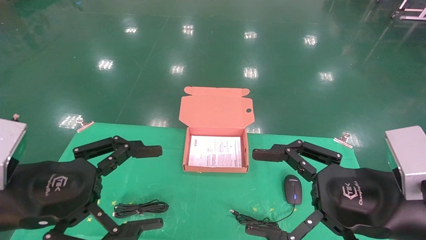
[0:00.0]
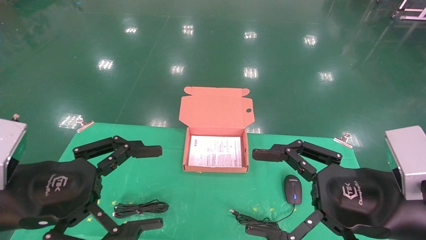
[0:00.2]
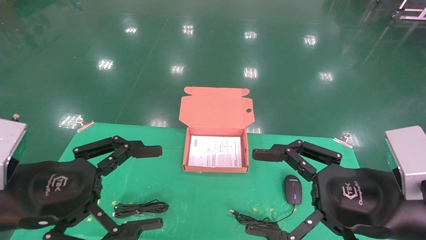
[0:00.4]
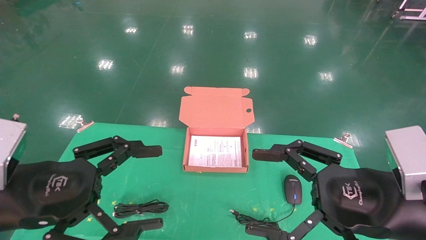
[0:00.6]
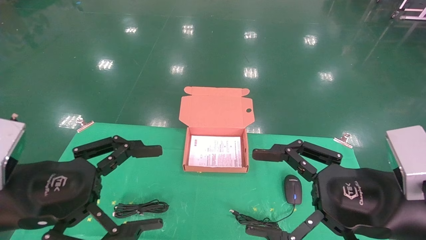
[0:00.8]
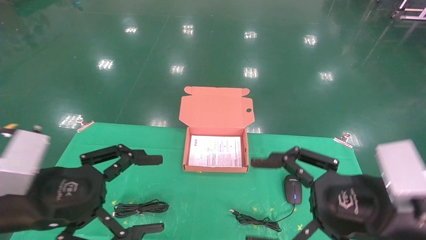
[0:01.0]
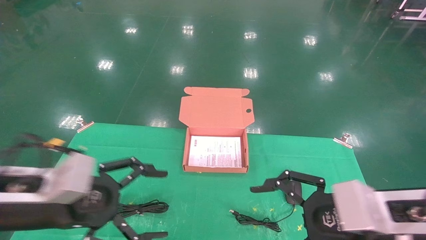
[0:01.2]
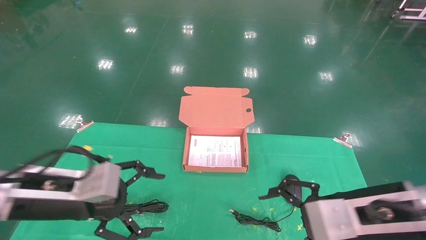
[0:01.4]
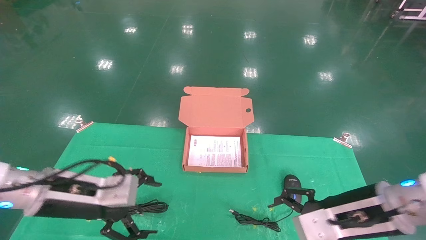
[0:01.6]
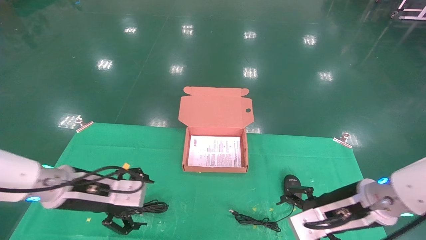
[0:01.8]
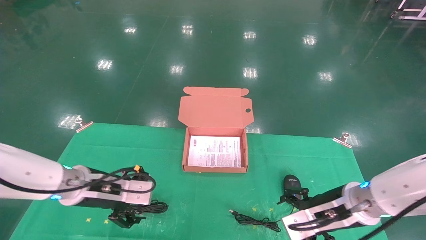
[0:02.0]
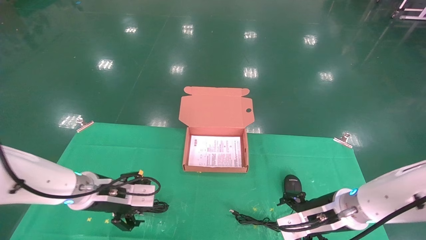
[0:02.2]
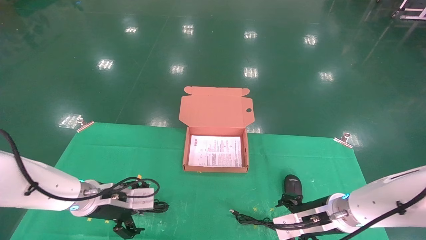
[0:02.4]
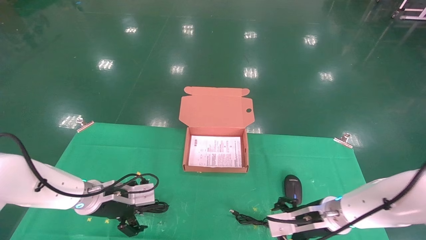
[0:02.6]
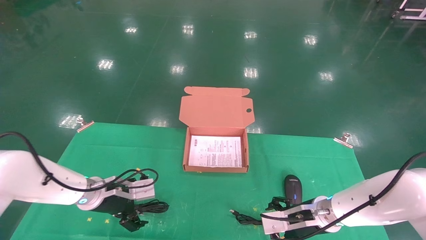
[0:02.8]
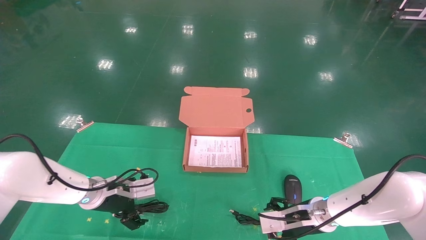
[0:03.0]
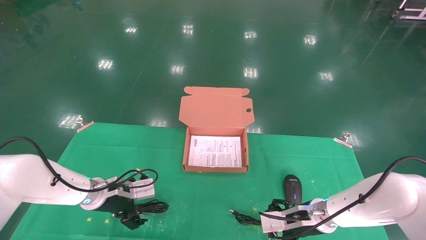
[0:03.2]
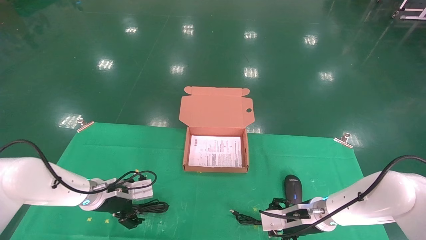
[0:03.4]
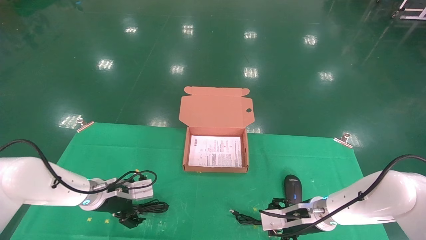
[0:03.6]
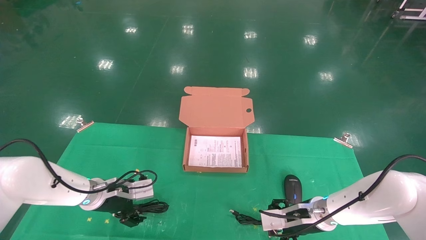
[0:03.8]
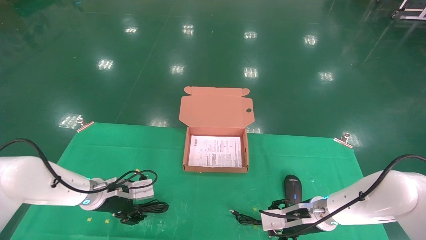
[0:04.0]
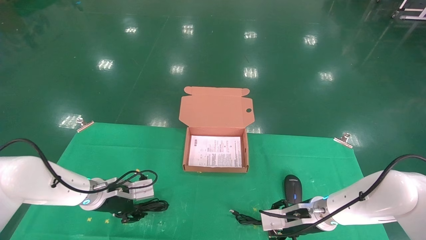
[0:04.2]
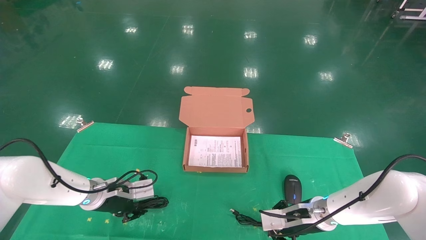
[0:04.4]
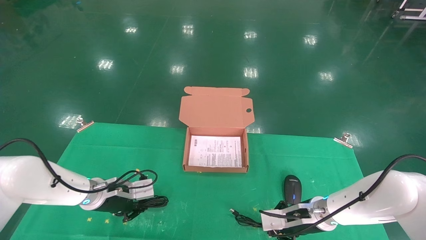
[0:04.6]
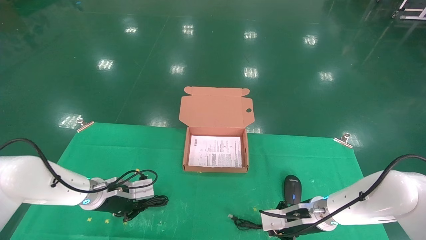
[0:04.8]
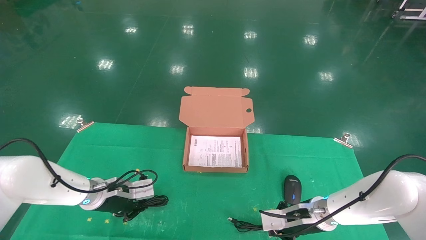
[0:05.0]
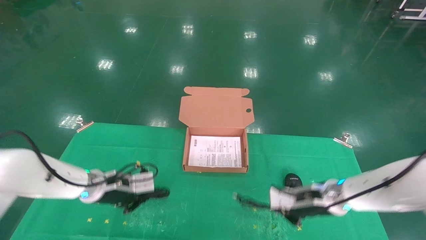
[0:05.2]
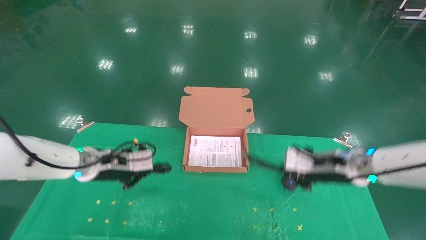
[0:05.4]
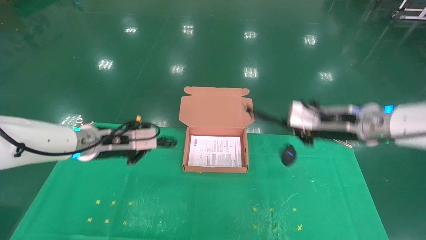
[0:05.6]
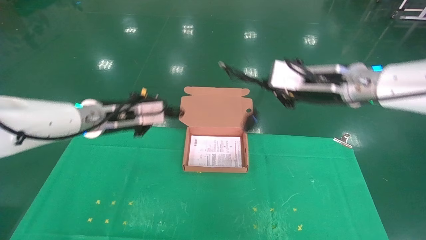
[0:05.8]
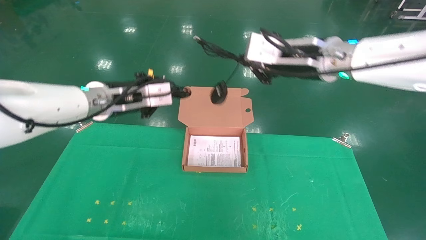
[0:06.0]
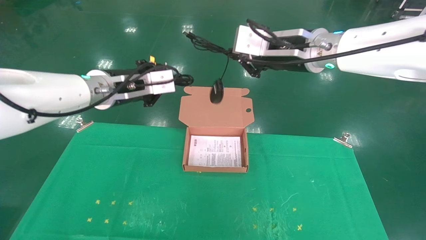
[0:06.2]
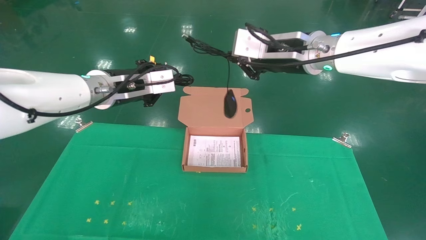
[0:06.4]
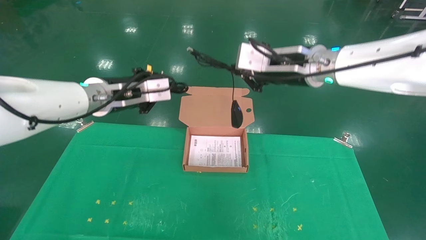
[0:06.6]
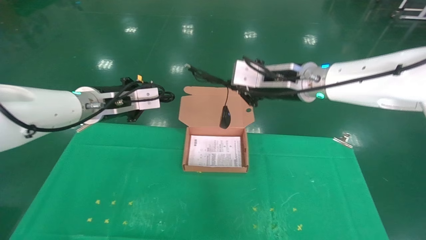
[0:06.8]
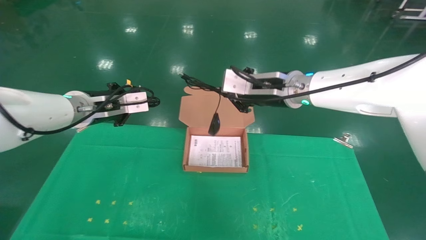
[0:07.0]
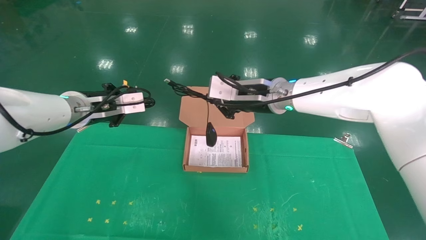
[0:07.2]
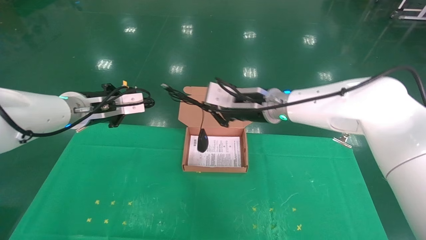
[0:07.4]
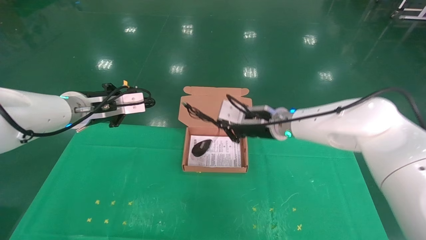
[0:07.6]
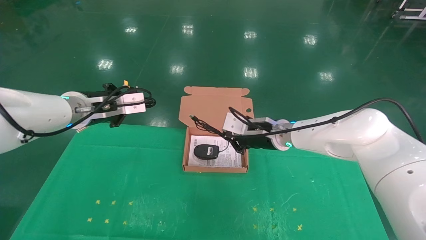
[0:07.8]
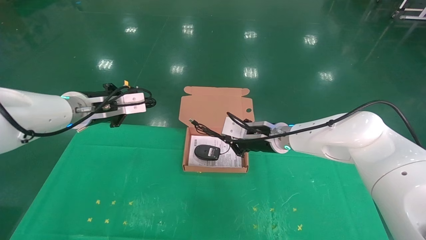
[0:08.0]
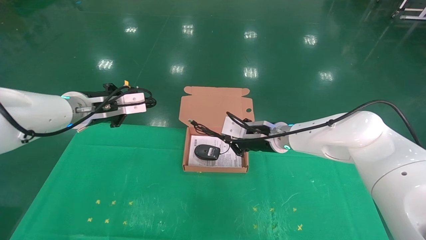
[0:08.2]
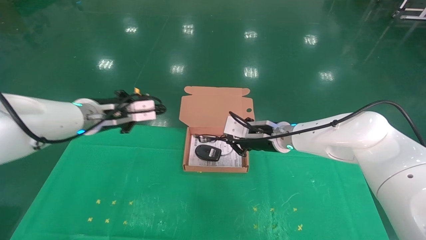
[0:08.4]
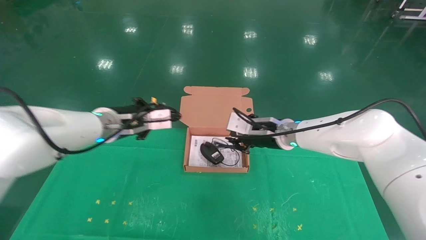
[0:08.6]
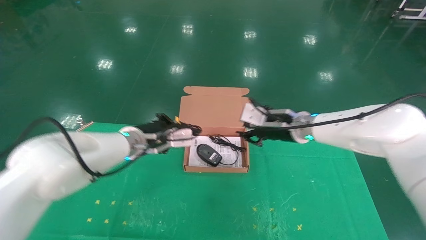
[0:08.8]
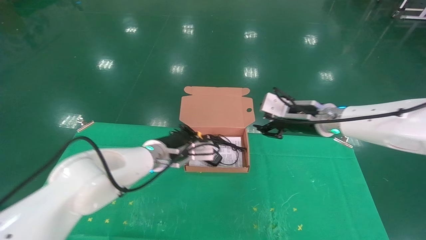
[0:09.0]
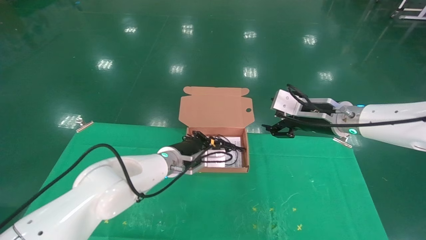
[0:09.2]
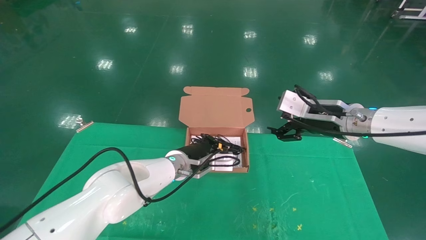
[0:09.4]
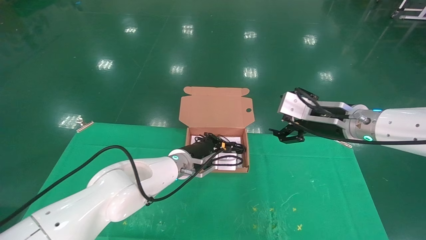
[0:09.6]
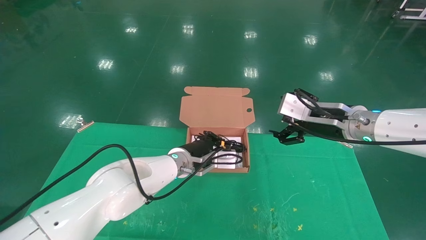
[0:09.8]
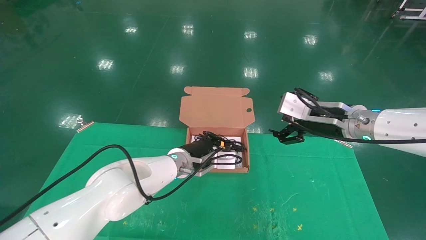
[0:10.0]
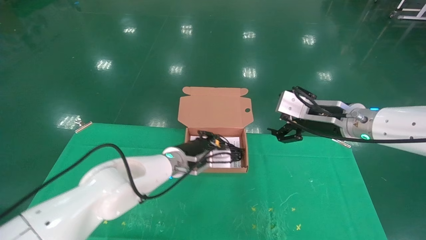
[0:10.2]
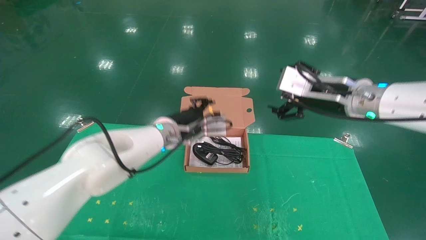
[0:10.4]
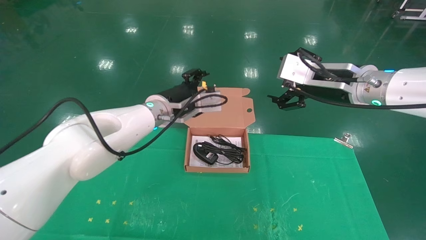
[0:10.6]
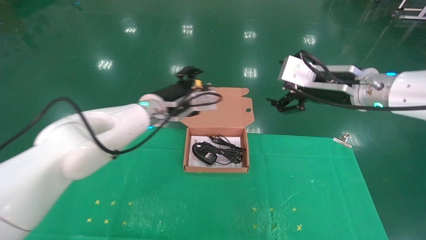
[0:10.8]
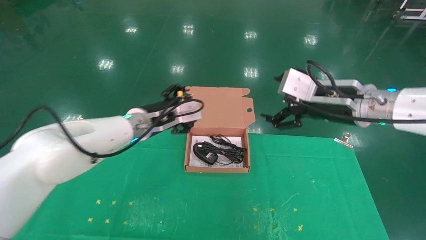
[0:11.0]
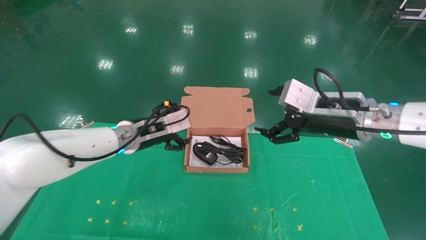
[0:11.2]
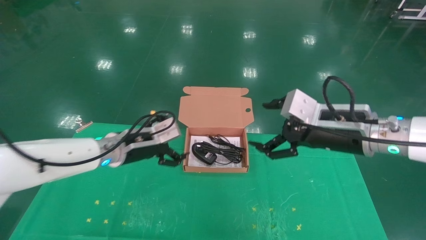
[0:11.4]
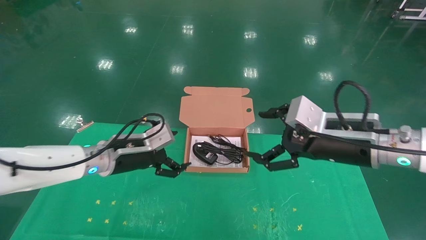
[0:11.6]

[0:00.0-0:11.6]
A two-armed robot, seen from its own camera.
Task of the whole recording: grasp data cable left put into box grasp mouse right put into box.
Step, 0:01.0 to 0:05.2: Grab and pick up both the mouse and power cord from the accessory packaging area at the same time.
Step, 0:05.4 to 0:10.6: Place the mouse and power cord into the box.
0:00.0 to 0:01.4: Both grippers move forward, about 5 cm.
0:01.4 to 0:02.8: Both grippers travel together forward and downward, about 20 cm.
0:02.8 to 0:04.4: The right gripper closes. The left gripper closes.
0:04.4 to 0:05.8: The left gripper shifts some 20 cm upward, and closes, while the right gripper shifts some 30 cm upward, and closes its fingers.
0:05.8 to 0:07.2: The right gripper is displaced to the left and forward by some 10 cm.
0:07.2 to 0:08.8: The grippers both shift to the right and downward by roughly 10 cm.
0:08.8 to 0:10.2: The right gripper travels backward, to the right and upward by about 10 cm, and opens, while the left gripper shifts about 10 cm to the right.
0:10.2 to 0:11.6: The right gripper travels backward by roughly 5 cm. Meanwhile the left gripper moves to the left and backward, roughly 15 cm, and opens up.
